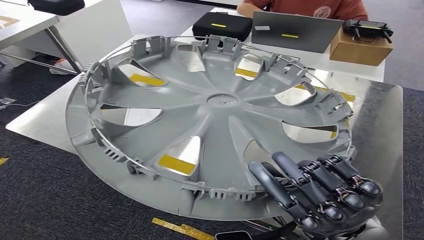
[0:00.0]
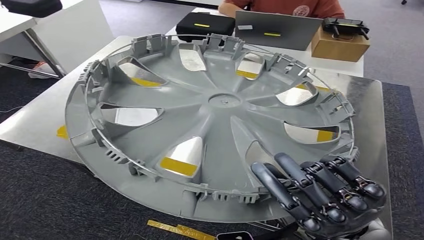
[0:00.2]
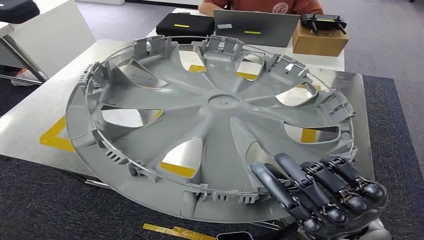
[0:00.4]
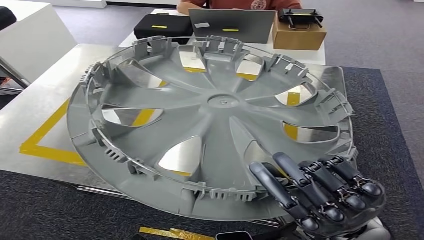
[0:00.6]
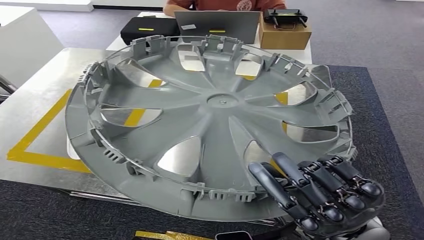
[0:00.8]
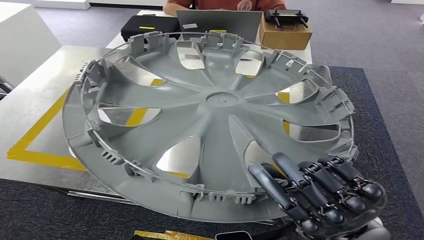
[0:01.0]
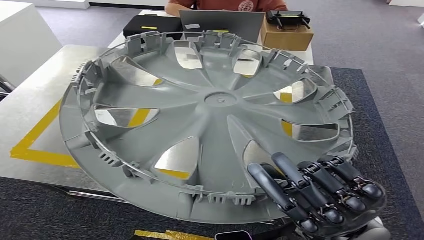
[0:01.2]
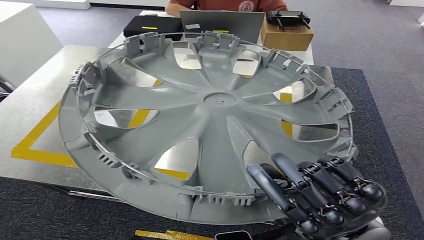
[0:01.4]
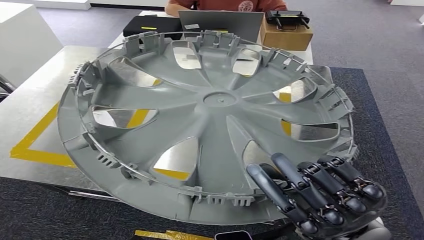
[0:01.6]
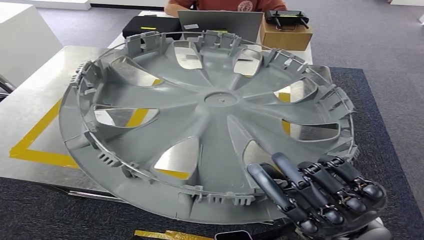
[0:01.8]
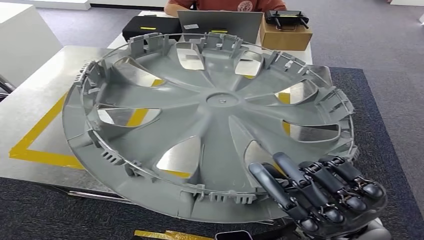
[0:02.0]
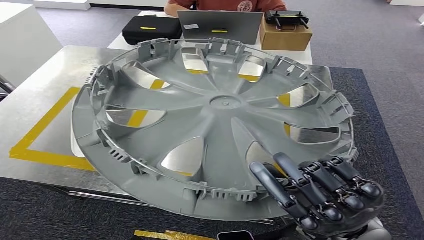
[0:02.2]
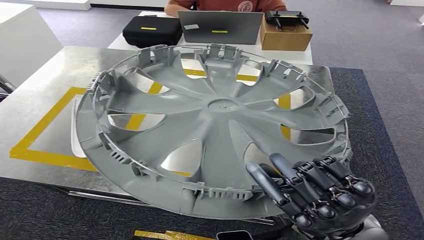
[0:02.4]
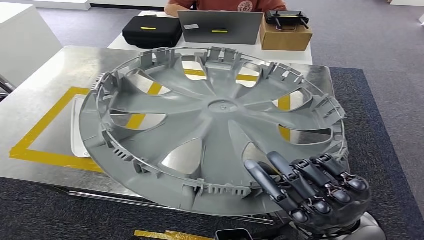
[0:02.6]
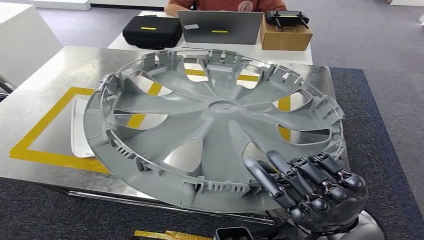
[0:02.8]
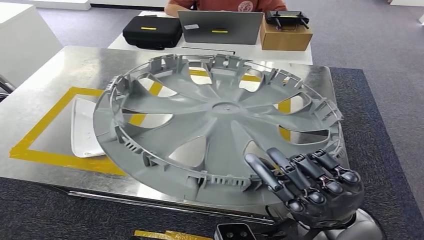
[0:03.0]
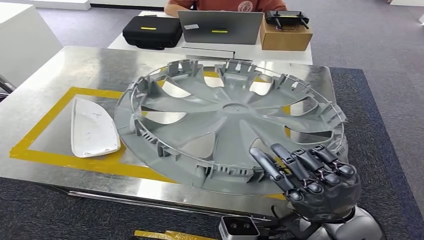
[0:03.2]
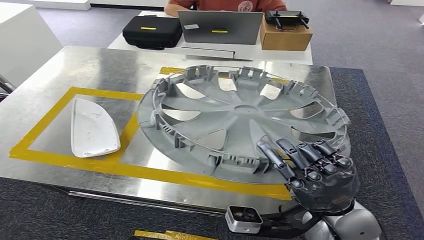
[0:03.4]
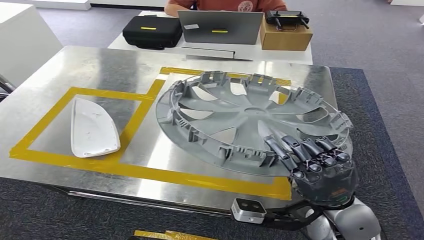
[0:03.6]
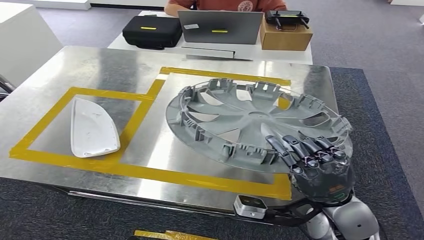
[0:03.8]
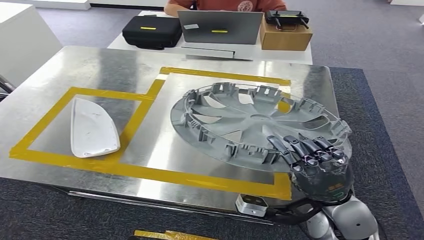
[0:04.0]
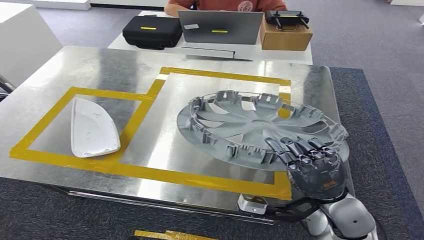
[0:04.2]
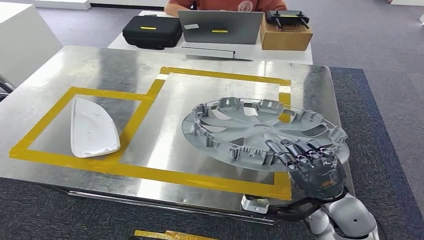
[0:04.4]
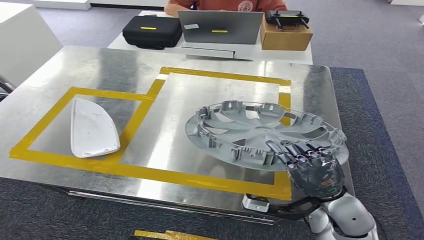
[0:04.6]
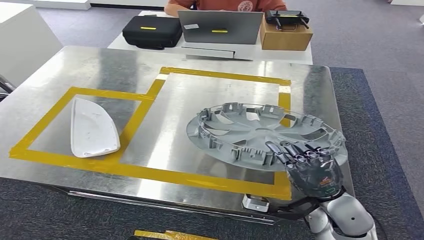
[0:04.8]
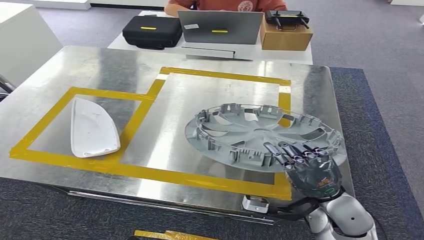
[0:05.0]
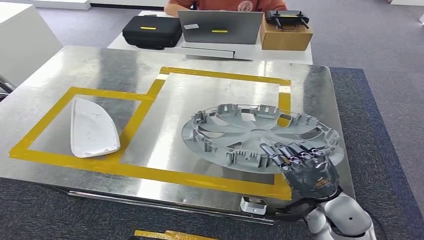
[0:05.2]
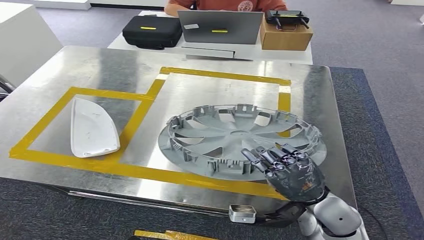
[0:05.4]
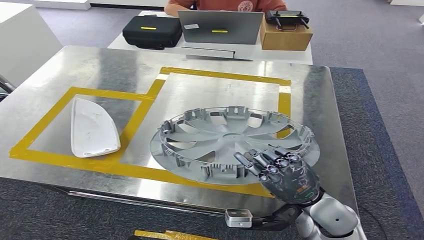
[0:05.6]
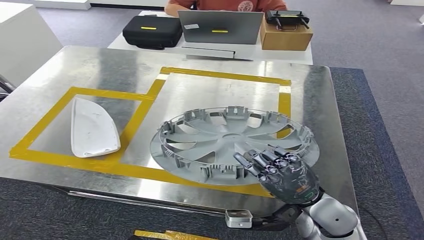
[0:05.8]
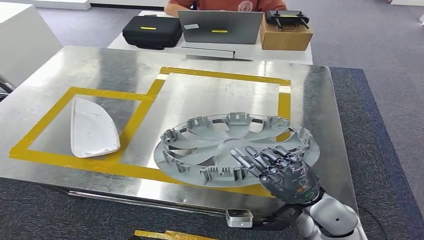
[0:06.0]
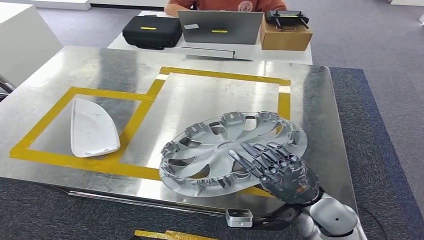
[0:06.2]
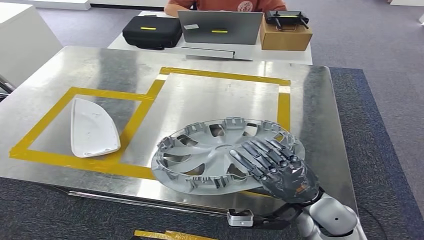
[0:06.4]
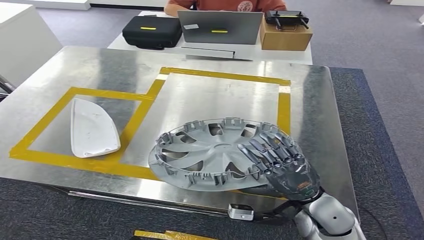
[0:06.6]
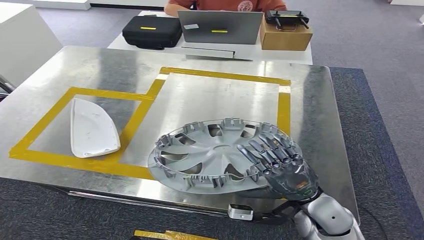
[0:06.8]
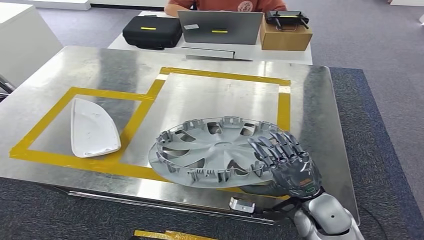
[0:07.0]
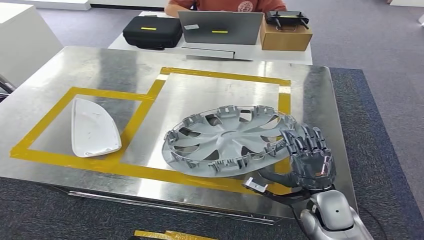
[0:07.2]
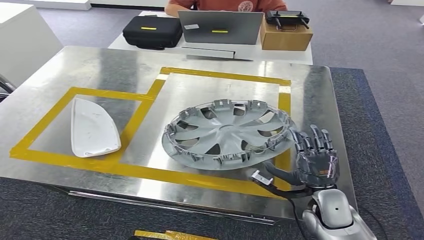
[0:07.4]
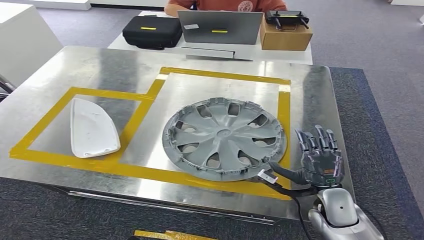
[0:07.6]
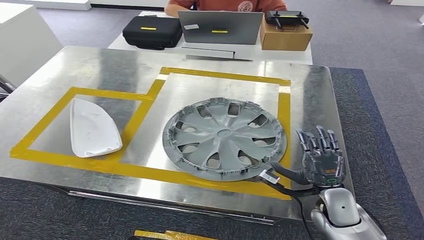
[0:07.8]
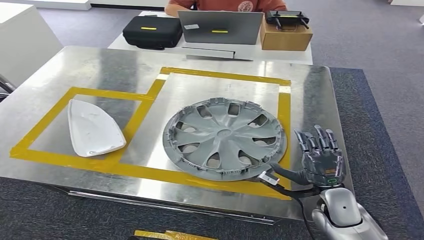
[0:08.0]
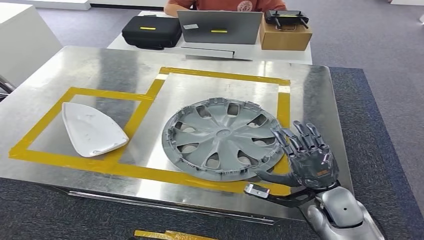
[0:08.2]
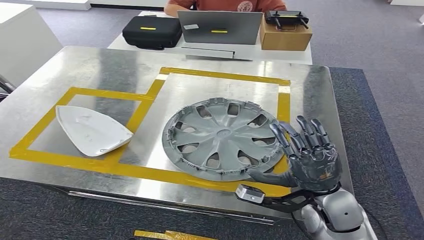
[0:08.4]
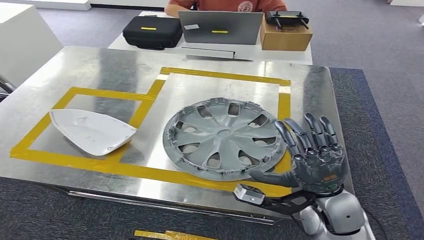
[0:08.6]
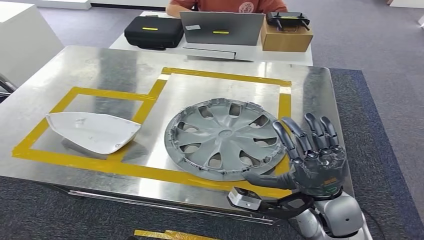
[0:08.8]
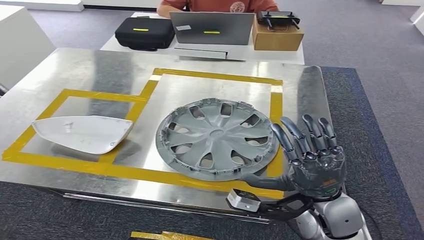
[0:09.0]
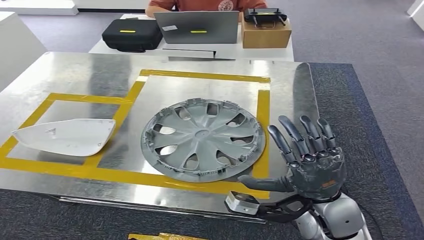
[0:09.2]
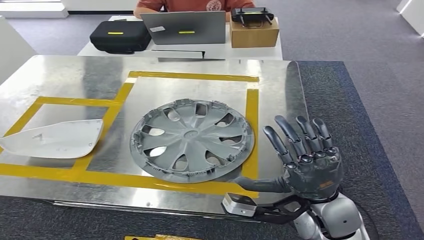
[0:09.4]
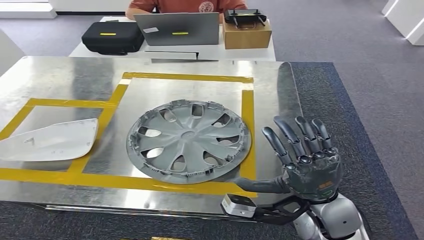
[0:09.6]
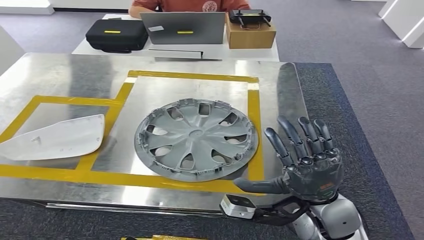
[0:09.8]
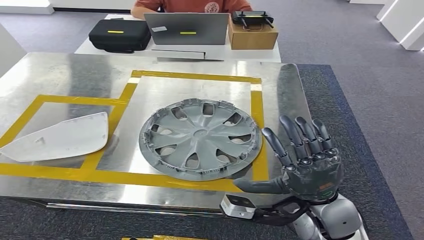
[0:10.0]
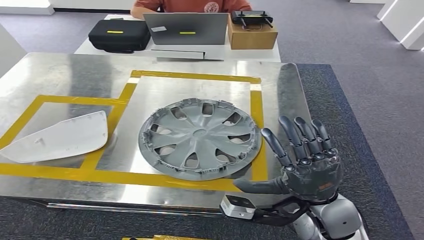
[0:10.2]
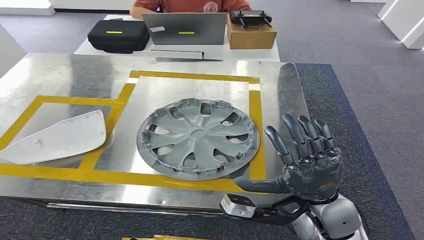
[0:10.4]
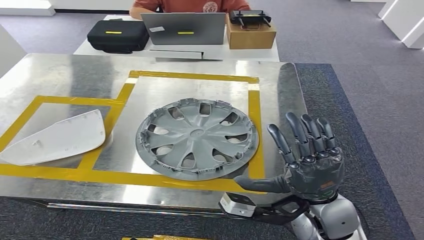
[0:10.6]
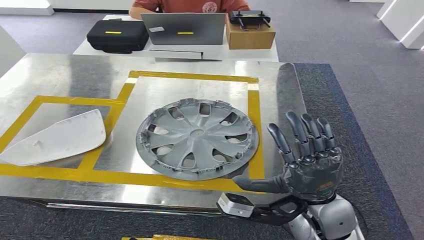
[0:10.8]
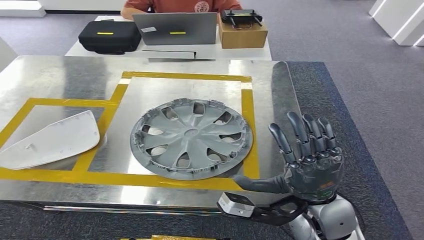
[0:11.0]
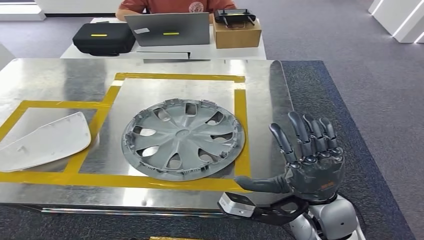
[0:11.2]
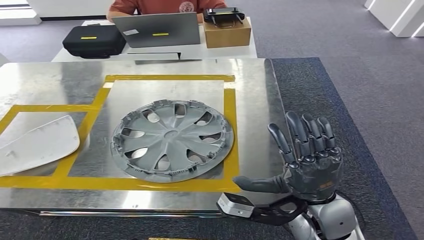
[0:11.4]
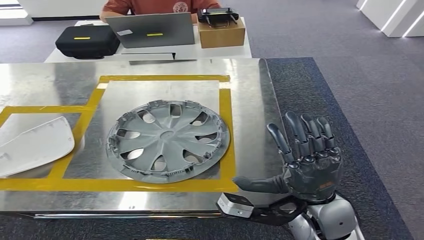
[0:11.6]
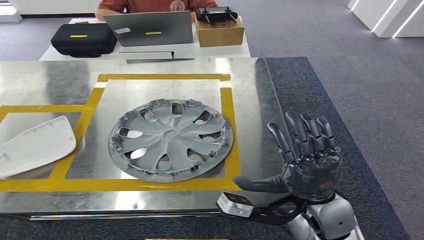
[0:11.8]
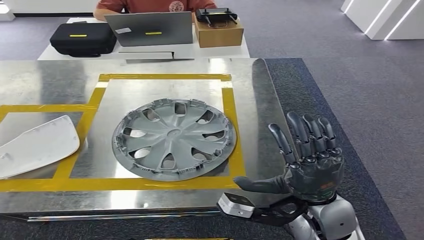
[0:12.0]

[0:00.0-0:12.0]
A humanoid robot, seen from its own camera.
Step, 0:00.0 to 0:08.6: Insert the small component into the corresponding slot on the workbench.
0:04.4 to 0:06.0: The hands move only a little.
0:06.0 to 0:07.6: The right hand heads downward and to the right, covering about 10 cm.

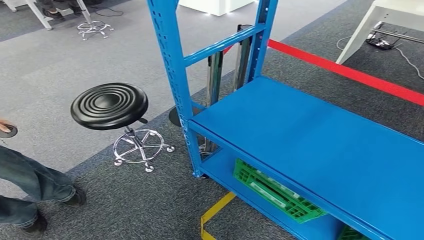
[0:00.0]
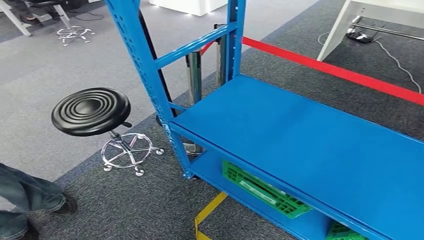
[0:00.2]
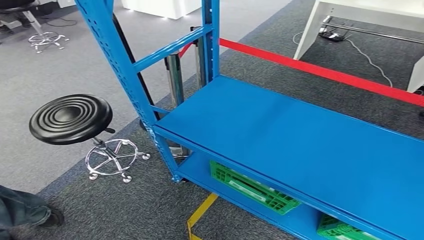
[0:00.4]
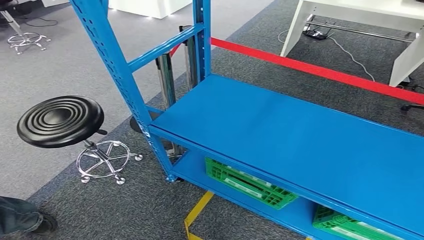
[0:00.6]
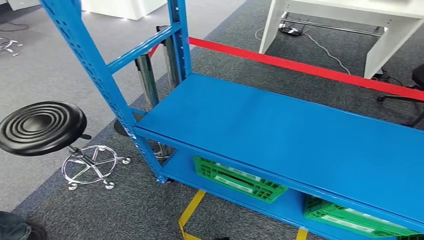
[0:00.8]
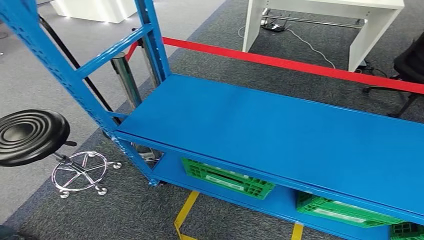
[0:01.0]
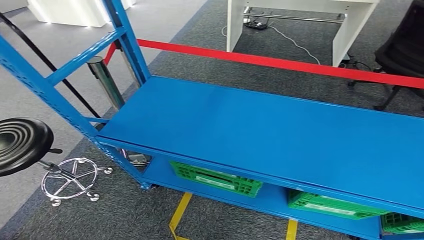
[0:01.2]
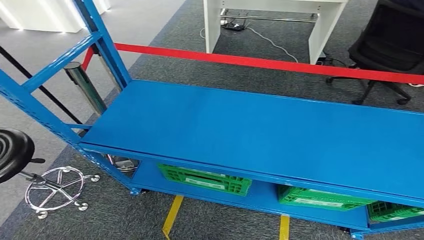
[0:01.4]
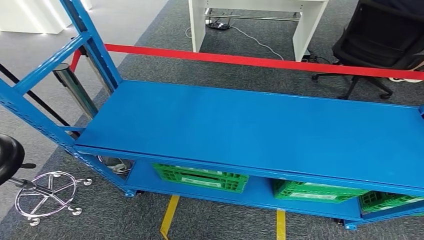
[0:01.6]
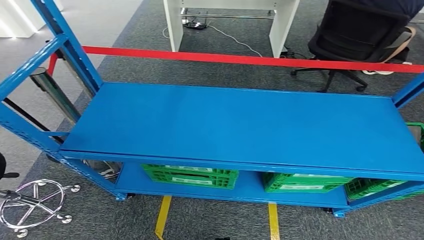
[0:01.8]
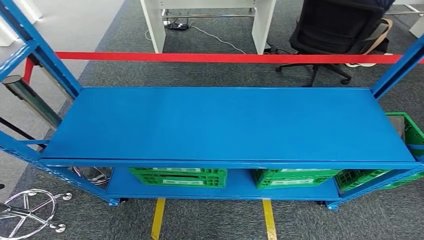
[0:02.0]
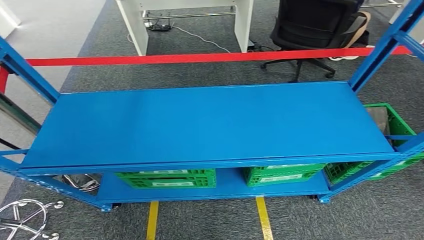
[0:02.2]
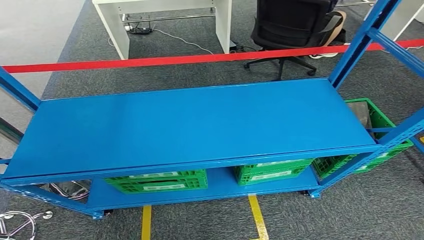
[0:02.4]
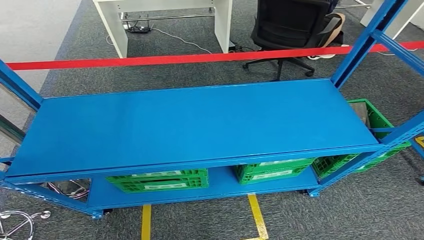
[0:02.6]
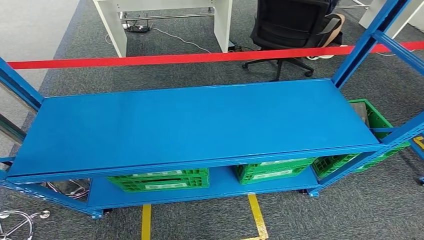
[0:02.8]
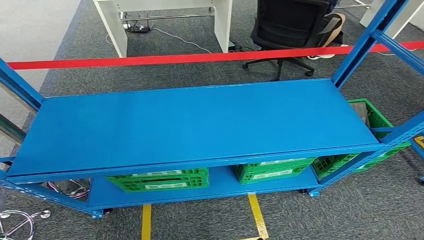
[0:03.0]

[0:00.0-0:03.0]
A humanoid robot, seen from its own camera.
Step, 0:00.0 to 0:03.0: Return to the initial position at the workbench.
